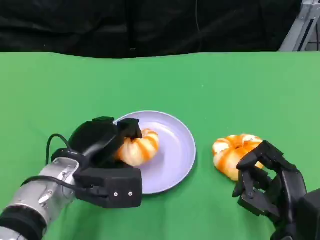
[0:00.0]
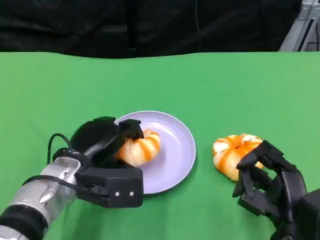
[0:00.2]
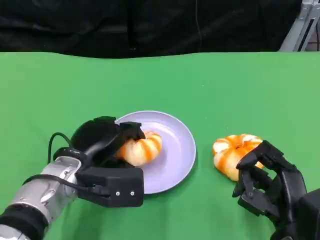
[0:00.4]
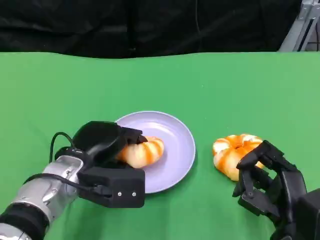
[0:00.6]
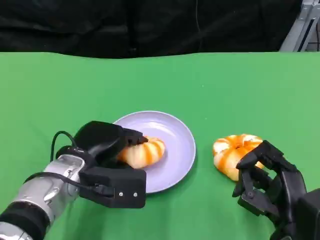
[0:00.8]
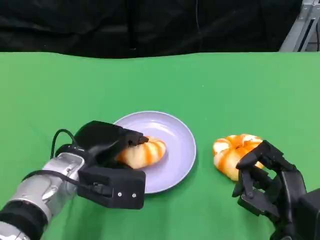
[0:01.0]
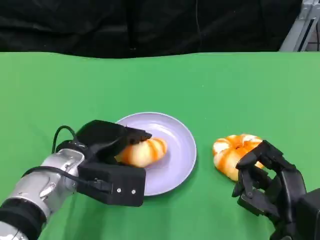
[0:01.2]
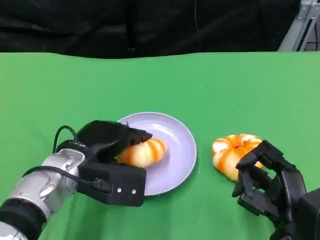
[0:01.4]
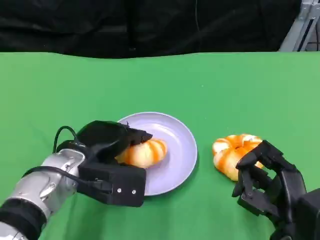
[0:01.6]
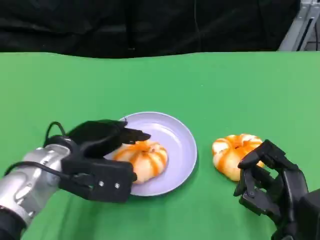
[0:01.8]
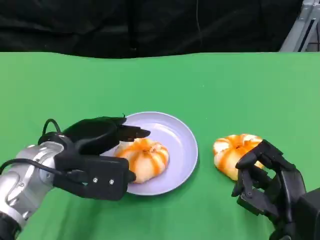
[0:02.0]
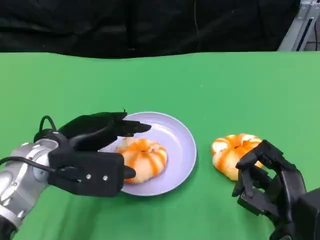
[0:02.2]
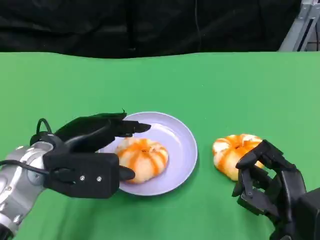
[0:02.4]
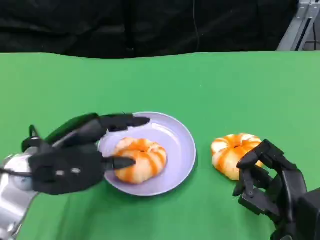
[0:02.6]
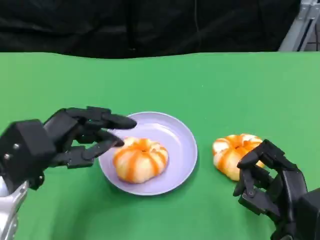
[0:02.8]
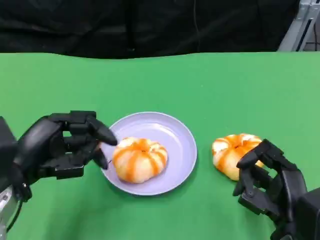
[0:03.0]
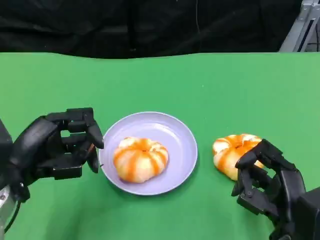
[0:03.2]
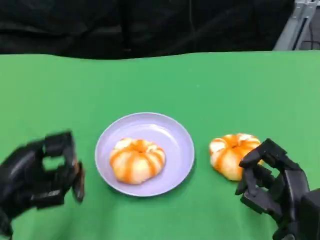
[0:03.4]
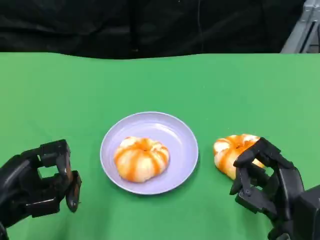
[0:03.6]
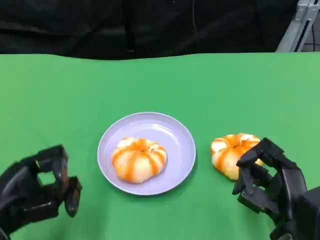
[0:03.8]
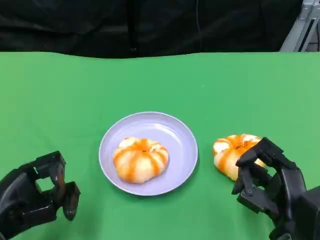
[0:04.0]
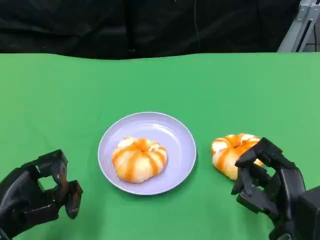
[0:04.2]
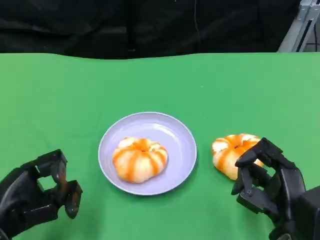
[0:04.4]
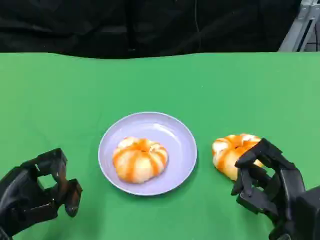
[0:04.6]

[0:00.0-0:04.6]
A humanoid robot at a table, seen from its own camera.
Task of the whole recording: Grasp the bread from the table and place it into the plate.
0:00.0 to 0:01.6: There are only small adjustments of the hands.
0:01.6 to 0:03.0: The left hand shifts roughly 10 cm to the left and backward.
0:03.0 to 0:04.6: The left hand shifts about 5 cm downward.

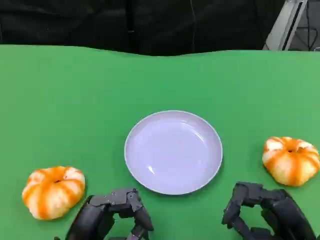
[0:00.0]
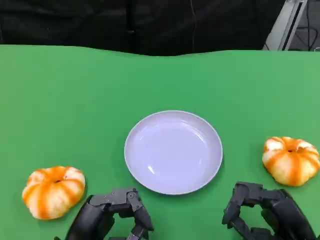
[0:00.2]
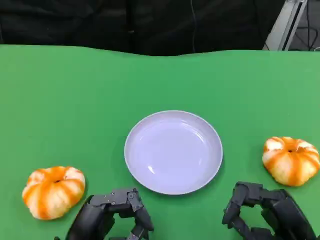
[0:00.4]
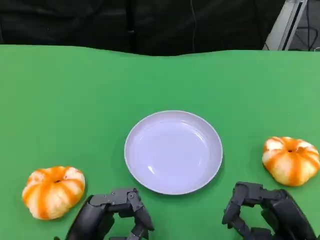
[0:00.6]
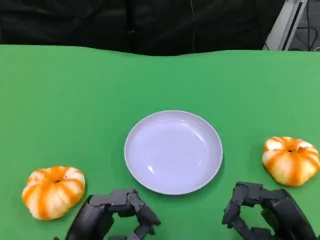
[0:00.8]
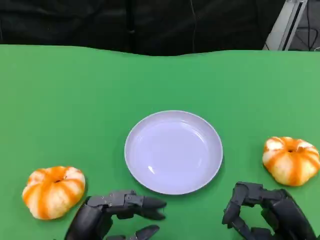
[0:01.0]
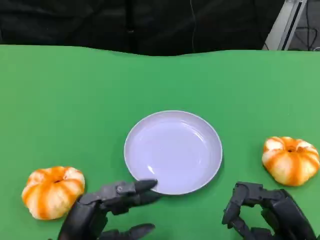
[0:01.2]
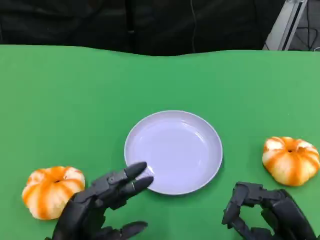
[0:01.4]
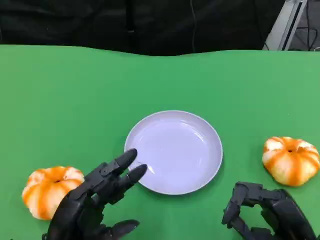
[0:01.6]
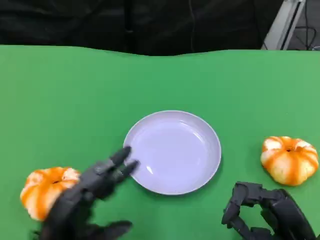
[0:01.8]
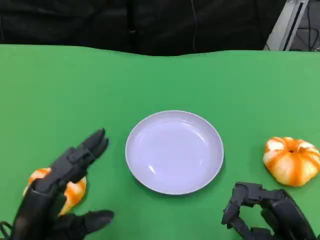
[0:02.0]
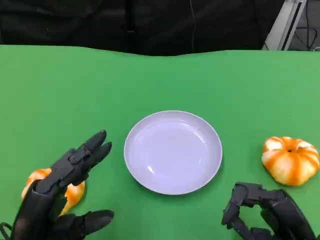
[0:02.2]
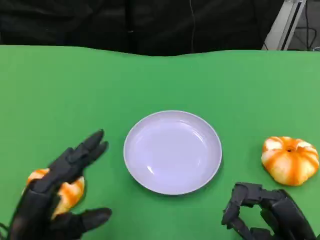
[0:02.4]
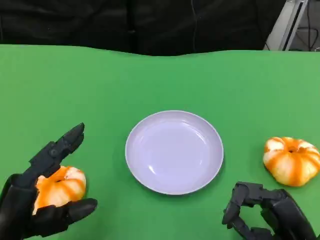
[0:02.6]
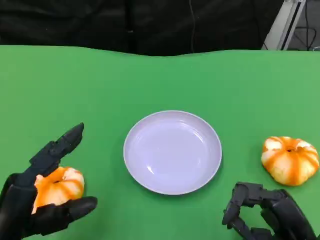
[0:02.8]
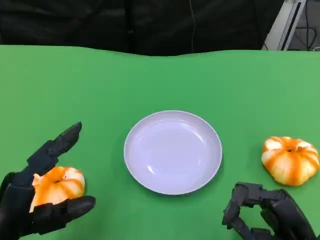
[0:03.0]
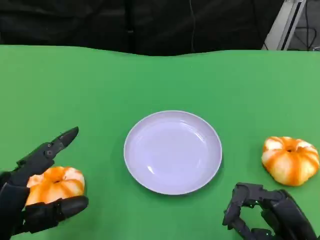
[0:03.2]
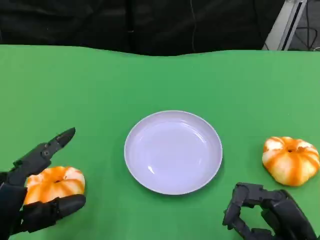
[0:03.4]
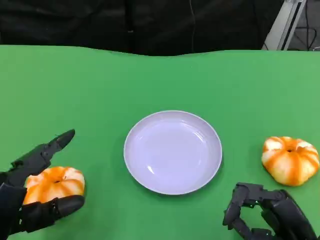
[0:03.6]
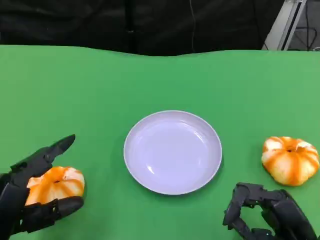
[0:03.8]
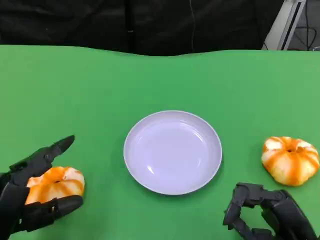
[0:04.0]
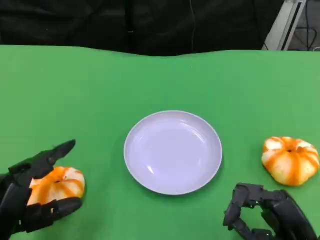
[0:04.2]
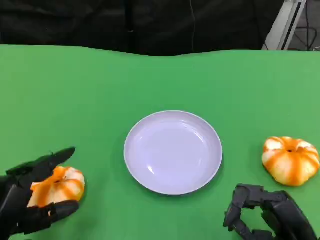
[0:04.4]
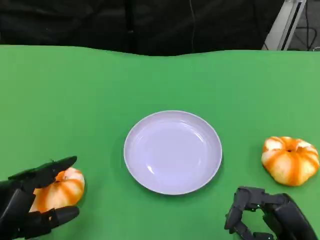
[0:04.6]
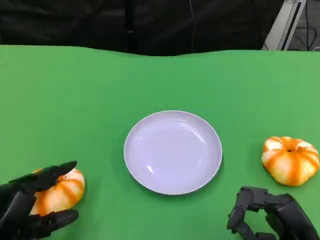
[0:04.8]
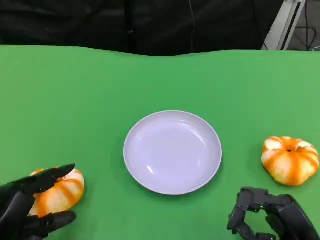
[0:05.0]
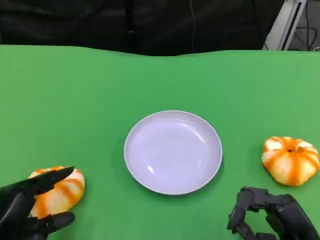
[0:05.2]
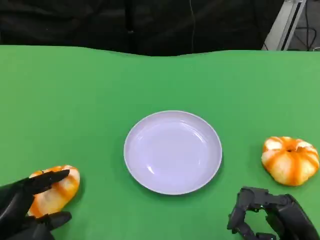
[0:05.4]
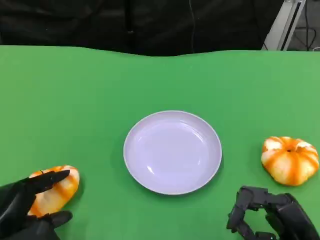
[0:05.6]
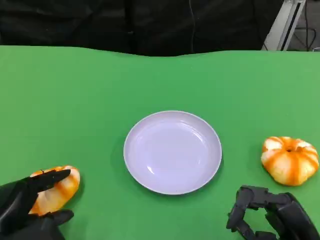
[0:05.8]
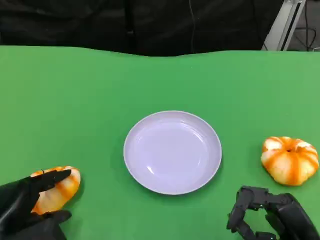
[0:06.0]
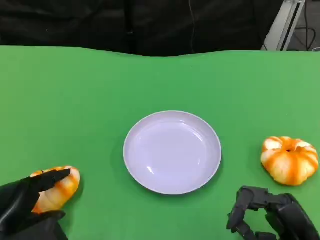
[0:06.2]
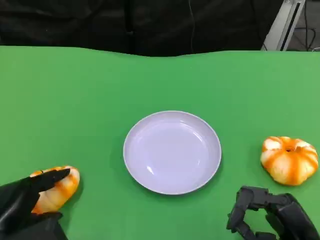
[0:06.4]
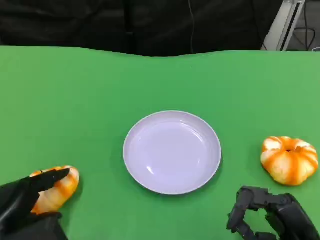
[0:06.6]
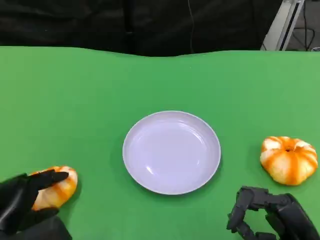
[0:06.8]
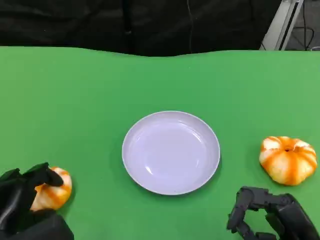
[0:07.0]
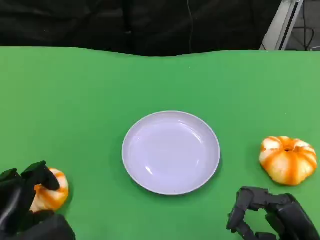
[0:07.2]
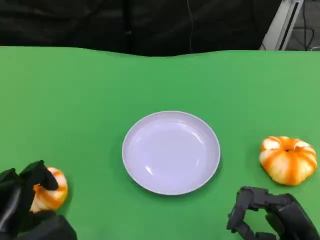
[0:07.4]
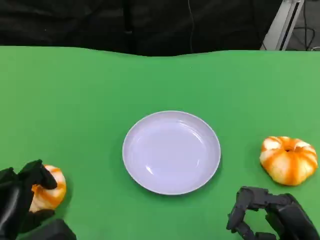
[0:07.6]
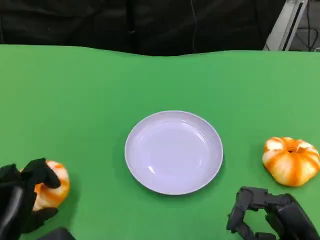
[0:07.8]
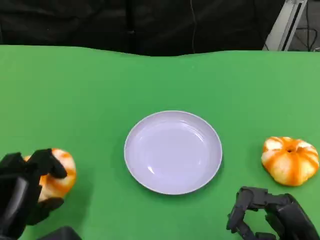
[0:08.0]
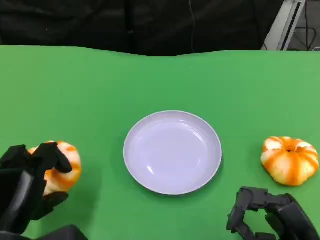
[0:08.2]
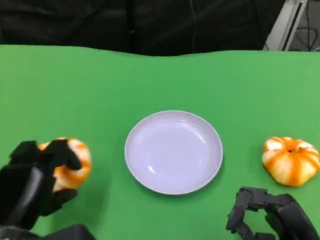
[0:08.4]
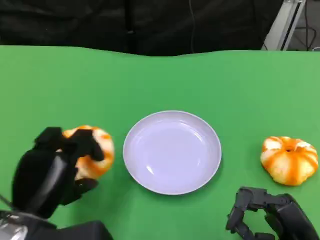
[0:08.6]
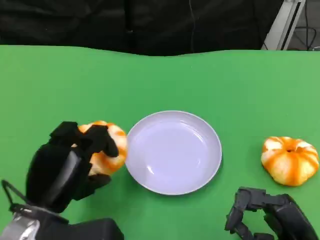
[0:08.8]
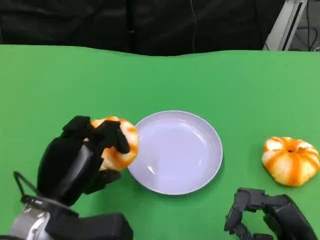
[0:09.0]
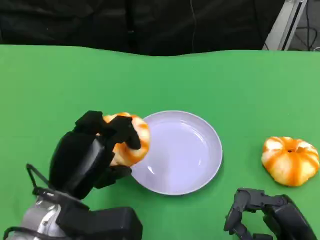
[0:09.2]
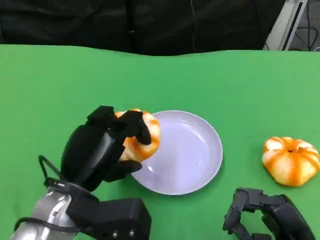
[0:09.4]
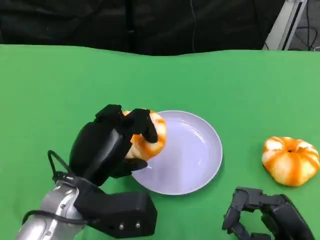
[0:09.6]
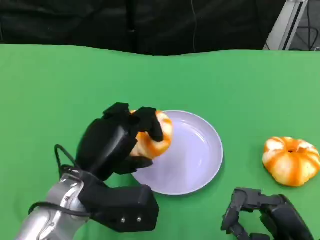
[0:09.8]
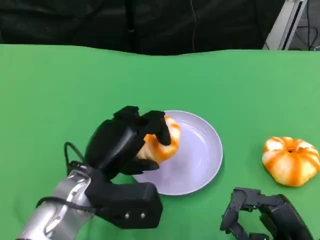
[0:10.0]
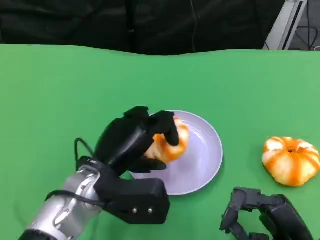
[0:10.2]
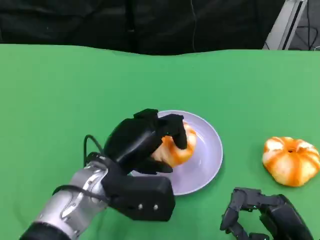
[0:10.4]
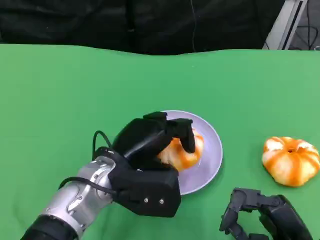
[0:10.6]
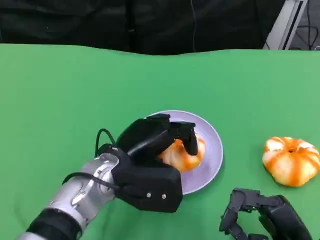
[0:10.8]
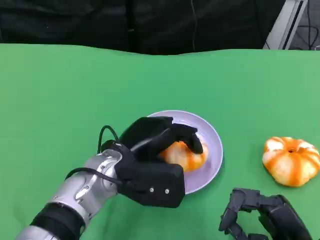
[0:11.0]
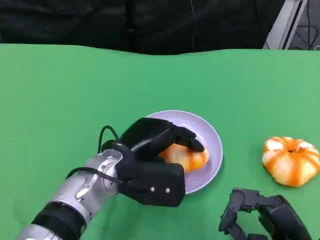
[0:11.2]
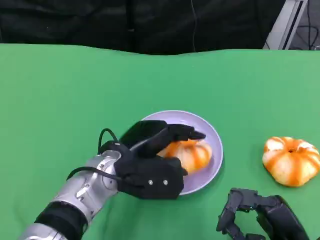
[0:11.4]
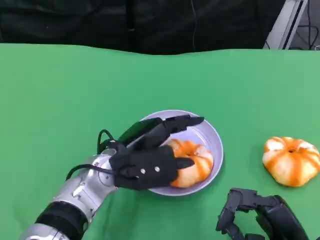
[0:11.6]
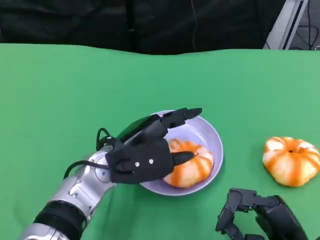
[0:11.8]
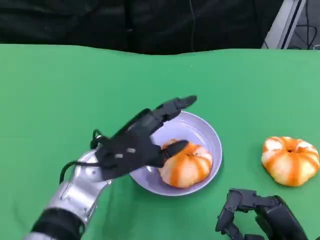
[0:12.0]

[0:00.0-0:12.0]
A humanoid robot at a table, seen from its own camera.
Task of the whole recording: Grasp the bread from the table and place it into the plate.
0:00.0 to 0:01.6: The hands make only small movements.
0:01.6 to 0:03.0: The left hand travels to the left by approximately 5 cm.
0:06.0 to 0:07.6: There are only small adjustments of the hands.
0:07.6 to 0:09.0: The left hand goes about 10 cm to the right and upward.
0:09.0 to 0:10.4: The left hand goes some 10 cm to the right and forward.

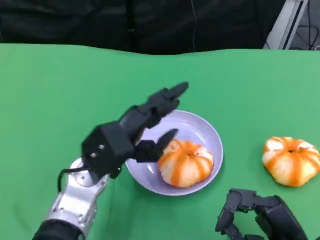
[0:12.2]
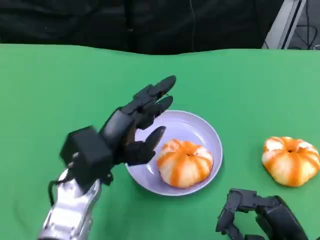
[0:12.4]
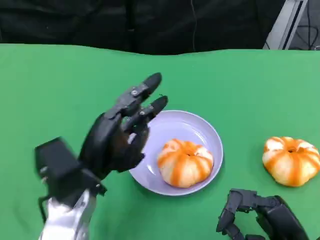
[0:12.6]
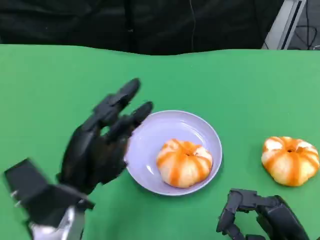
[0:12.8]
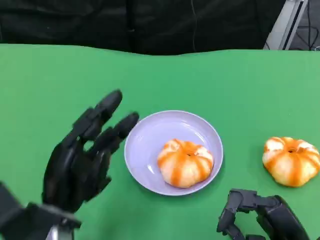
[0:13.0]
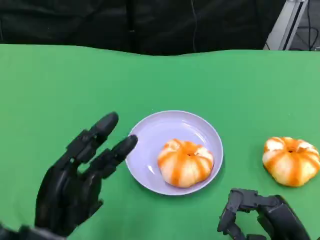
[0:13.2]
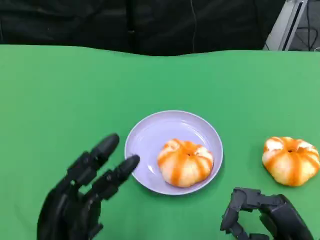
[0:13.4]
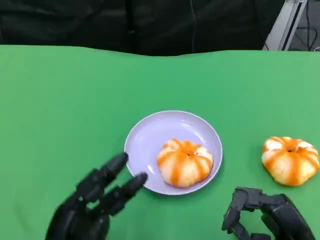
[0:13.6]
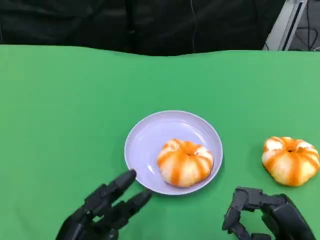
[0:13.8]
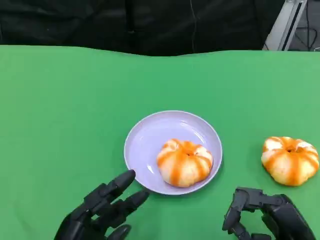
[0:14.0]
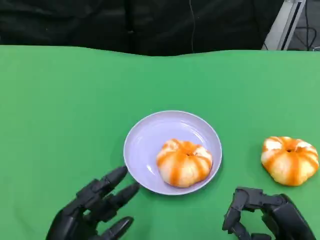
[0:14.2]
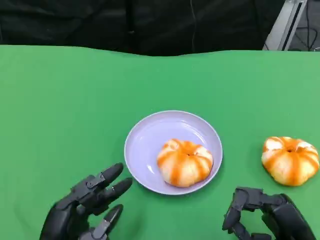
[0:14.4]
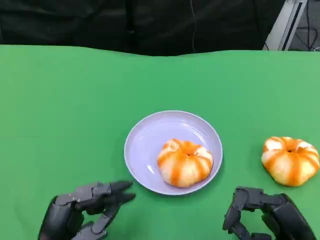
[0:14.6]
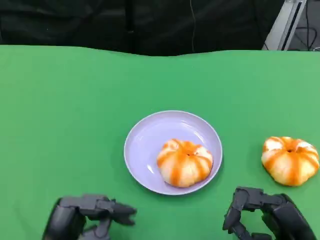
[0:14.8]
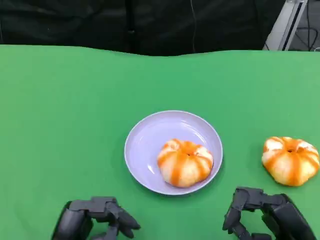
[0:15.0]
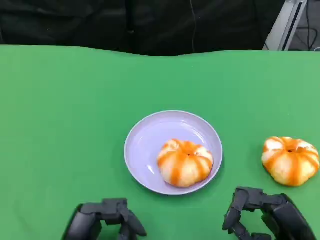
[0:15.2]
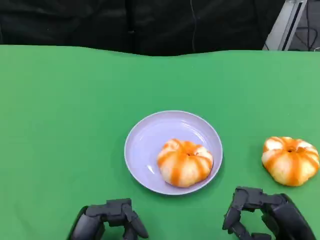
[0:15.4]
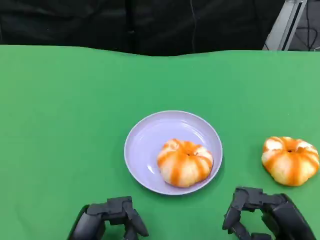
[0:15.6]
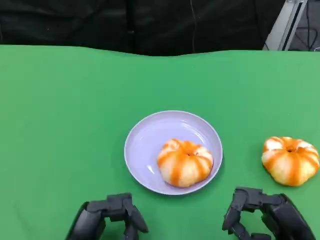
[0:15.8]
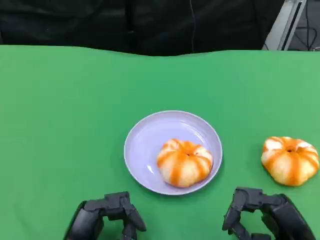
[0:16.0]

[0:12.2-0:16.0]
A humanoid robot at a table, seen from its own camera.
Task of the whole recording: Grasp the bread from the table and place it into the plate.
0:12.2 to 0:13.4: The left hand travels backward and to the left by roughly 15 cm.
0:14.8 to 0:16.0: The hands stay close to where they were, moving slightly.
